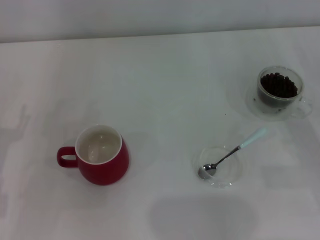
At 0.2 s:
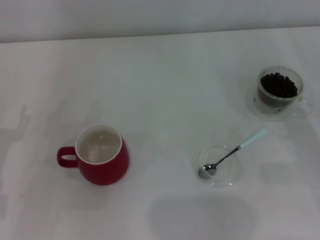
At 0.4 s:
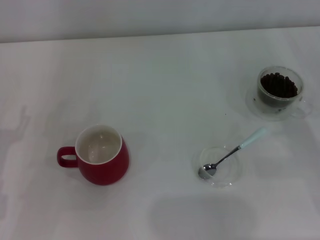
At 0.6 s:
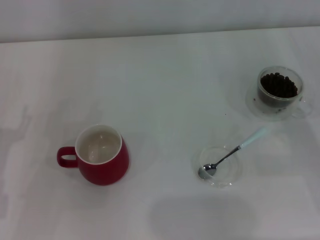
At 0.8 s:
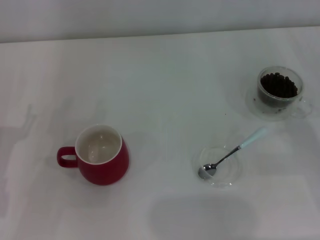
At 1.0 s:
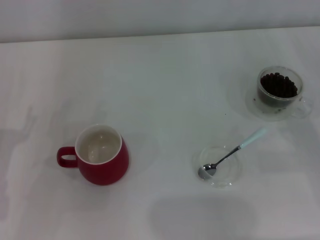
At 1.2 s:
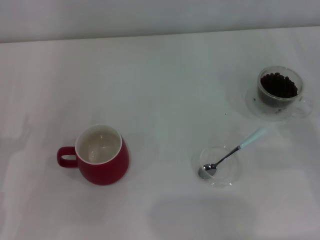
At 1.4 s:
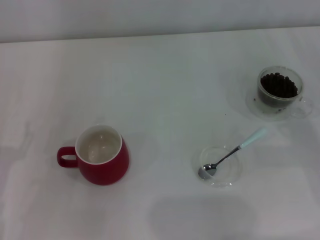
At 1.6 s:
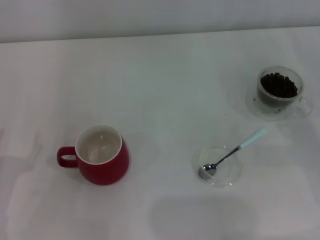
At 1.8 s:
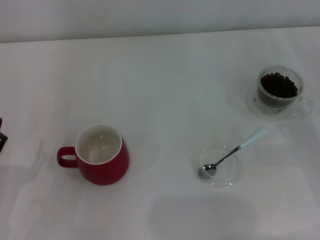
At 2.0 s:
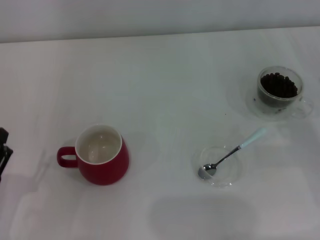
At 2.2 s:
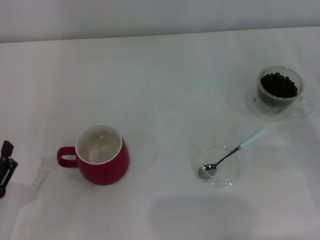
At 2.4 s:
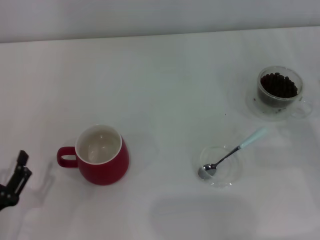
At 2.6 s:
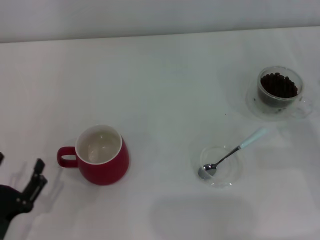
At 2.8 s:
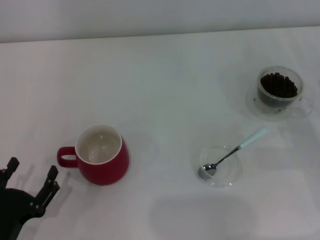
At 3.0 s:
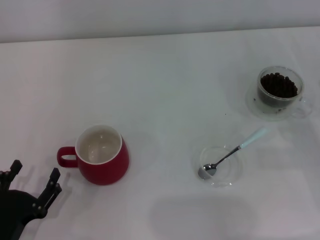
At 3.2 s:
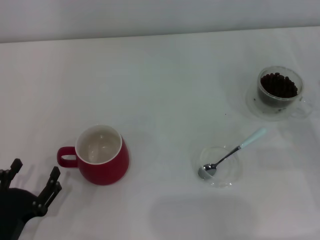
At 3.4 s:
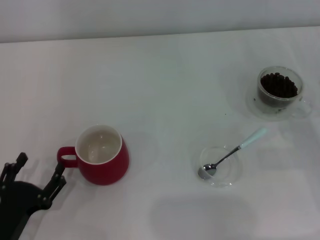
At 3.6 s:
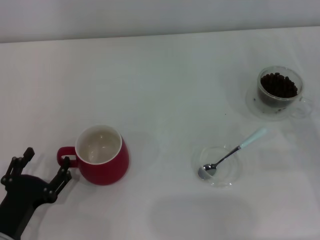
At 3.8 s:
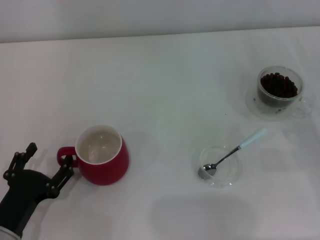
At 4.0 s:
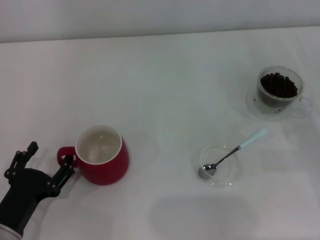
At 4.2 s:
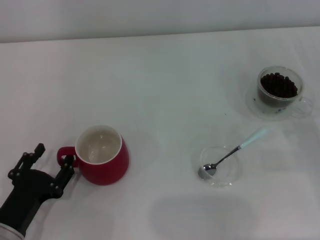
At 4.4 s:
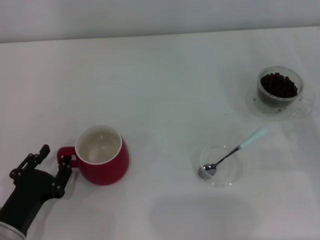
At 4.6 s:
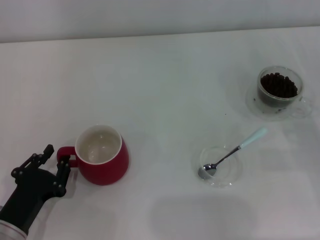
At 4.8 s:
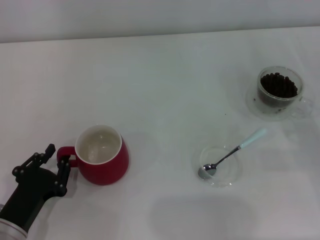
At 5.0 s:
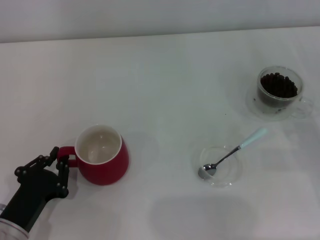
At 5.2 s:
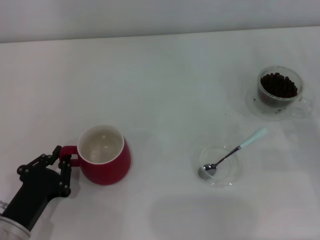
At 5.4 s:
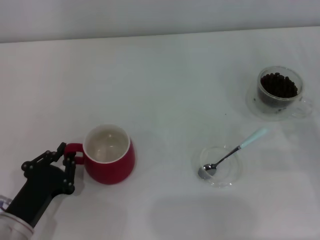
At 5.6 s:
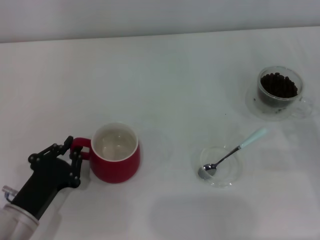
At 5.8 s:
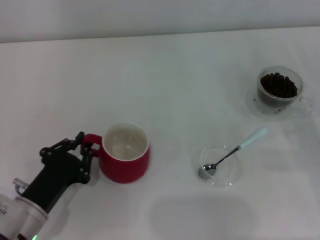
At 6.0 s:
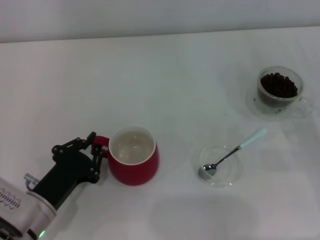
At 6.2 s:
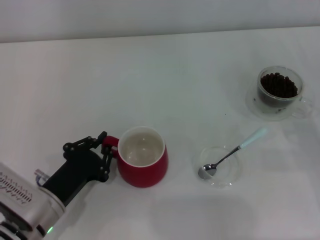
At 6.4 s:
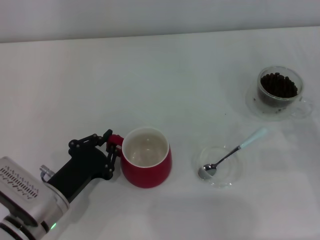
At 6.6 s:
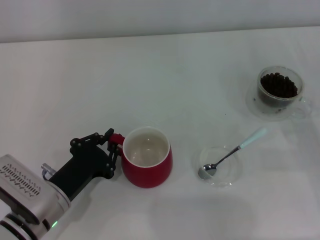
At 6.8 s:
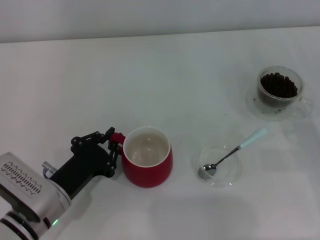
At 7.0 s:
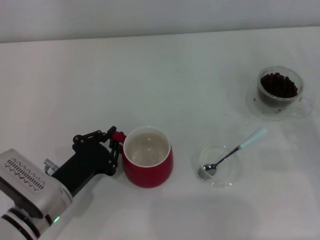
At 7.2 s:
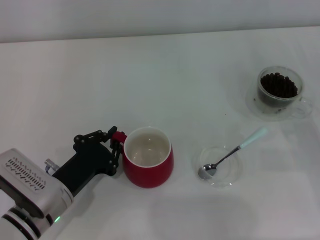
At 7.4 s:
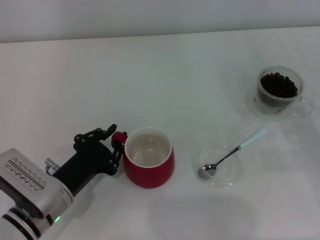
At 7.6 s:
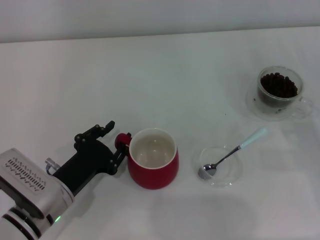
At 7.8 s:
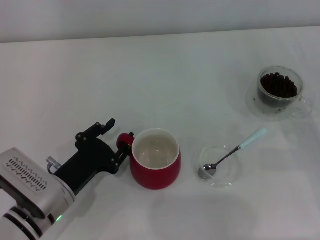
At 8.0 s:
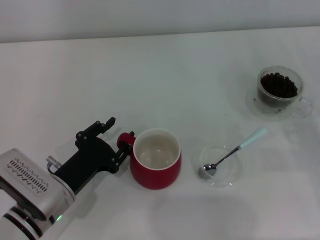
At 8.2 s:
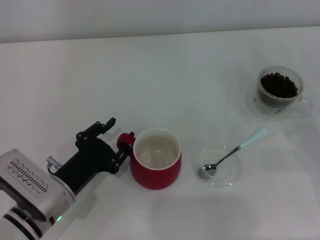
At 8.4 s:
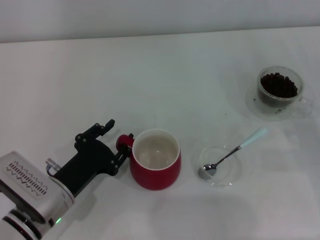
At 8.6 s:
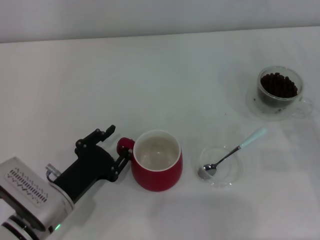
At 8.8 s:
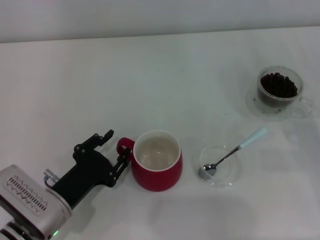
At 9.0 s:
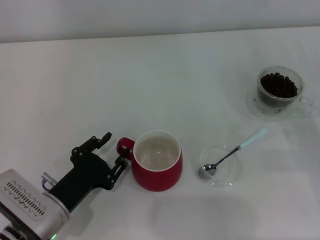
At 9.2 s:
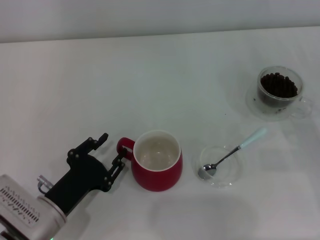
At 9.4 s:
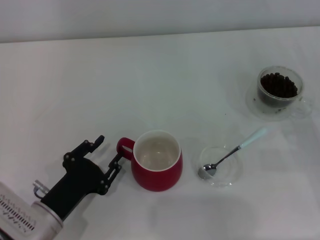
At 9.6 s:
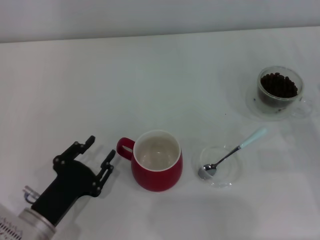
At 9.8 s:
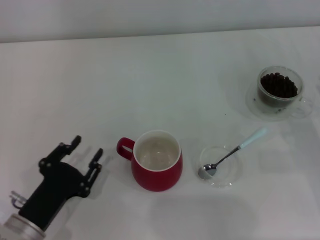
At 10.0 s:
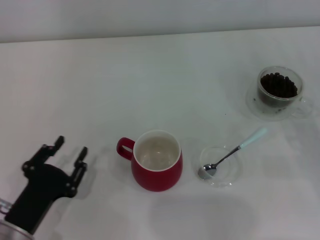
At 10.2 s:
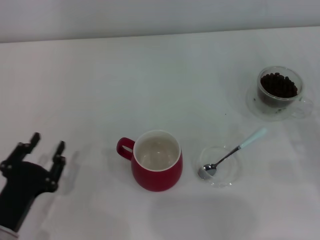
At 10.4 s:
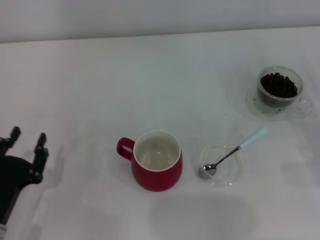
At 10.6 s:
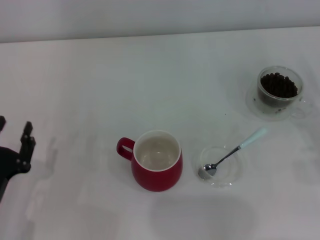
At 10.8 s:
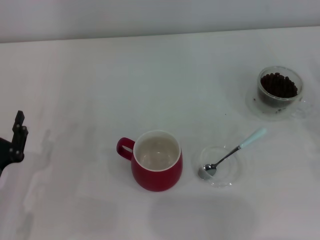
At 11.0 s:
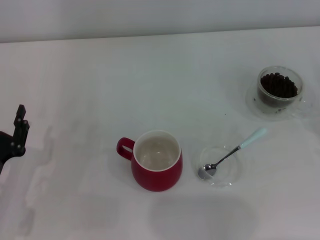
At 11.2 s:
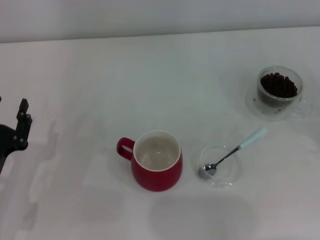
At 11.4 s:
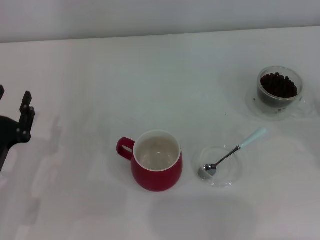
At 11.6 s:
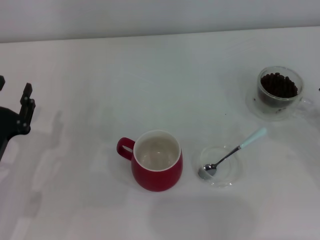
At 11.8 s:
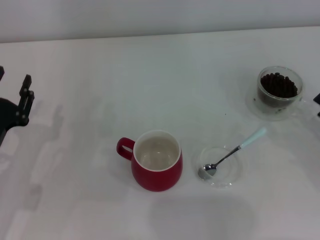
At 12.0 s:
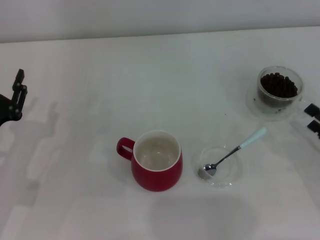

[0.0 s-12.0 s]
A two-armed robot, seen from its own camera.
Task of the whole recording: Use a blue spoon to take out the coffee beans from the glass and pour them into the red cup.
Step, 0.0 to 9.8 s: Move the cup to the center of view with the left gripper.
1.6 to 3.0 s: The left gripper moves approximately 5 cm.
3.0 to 4.4 s: The left gripper closes its fingers.
4.4 to 6.0 s: The left gripper changes place by roughly 5 cm, and closes.
6.0 to 9.0 s: The grippers stay close to where they were, moving slightly.
9.0 to 10.4 s: The left gripper heads to the left, covering some 5 cm.
10.4 to 12.0 s: The left gripper heads forward, covering some 10 cm.

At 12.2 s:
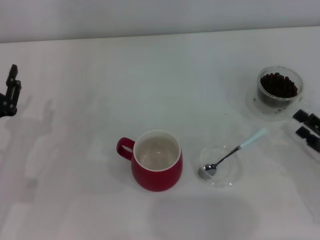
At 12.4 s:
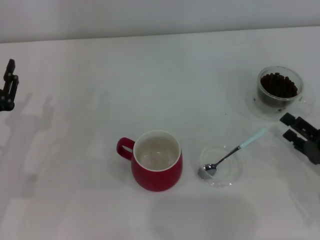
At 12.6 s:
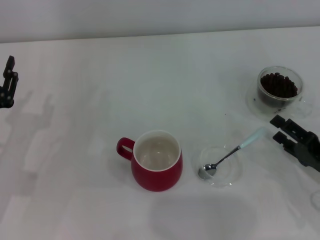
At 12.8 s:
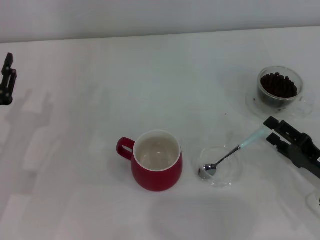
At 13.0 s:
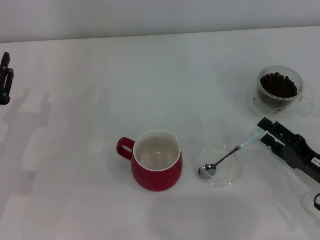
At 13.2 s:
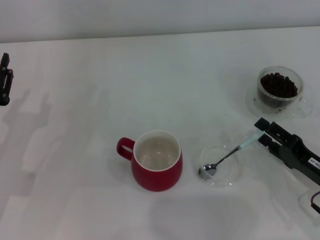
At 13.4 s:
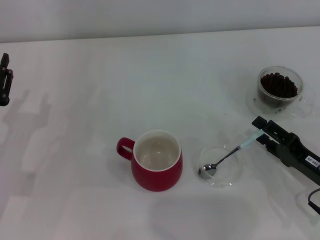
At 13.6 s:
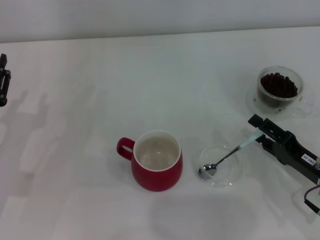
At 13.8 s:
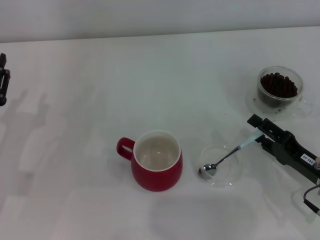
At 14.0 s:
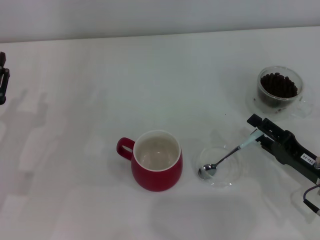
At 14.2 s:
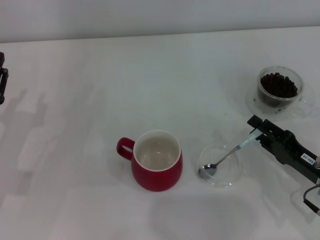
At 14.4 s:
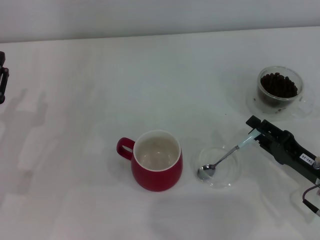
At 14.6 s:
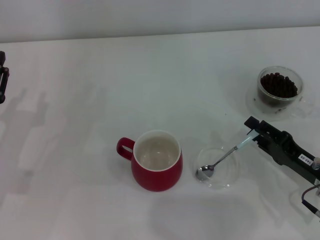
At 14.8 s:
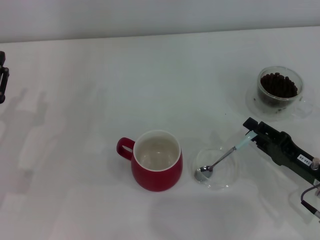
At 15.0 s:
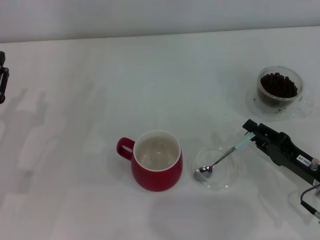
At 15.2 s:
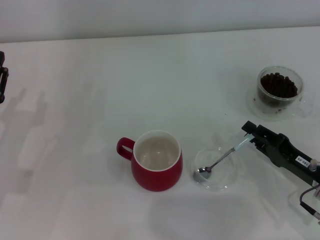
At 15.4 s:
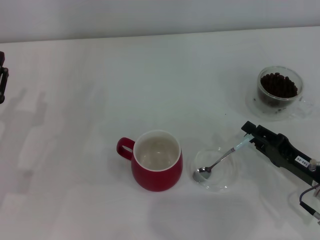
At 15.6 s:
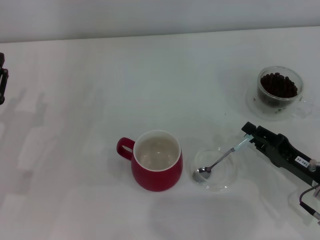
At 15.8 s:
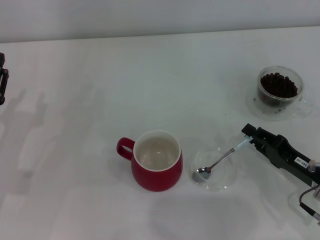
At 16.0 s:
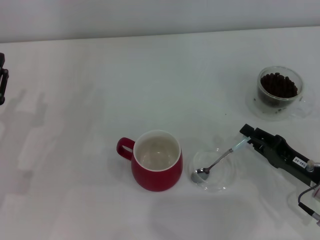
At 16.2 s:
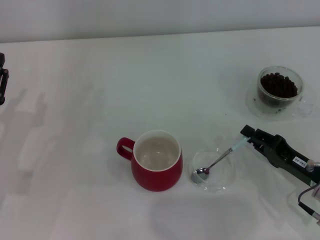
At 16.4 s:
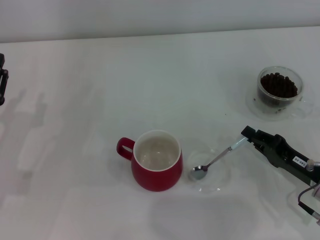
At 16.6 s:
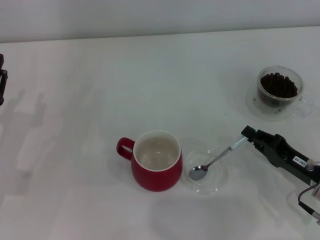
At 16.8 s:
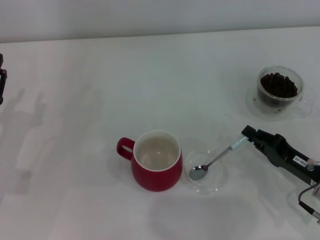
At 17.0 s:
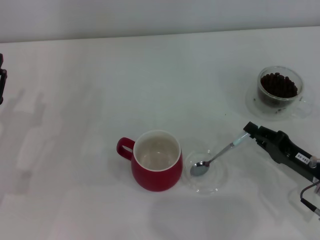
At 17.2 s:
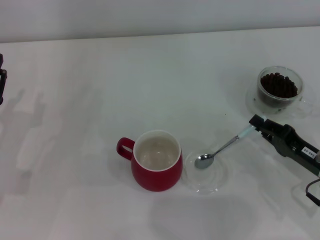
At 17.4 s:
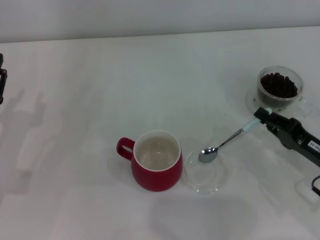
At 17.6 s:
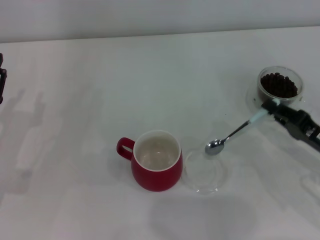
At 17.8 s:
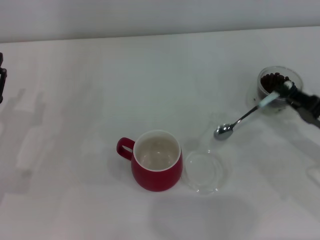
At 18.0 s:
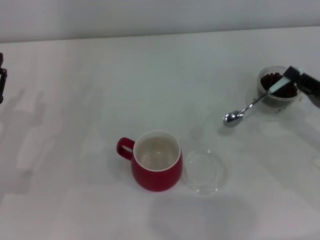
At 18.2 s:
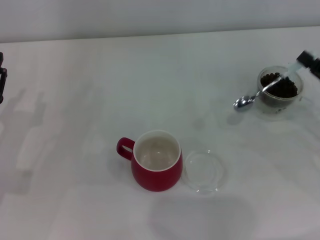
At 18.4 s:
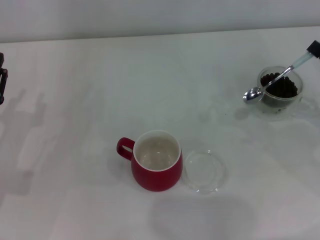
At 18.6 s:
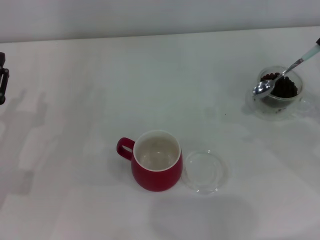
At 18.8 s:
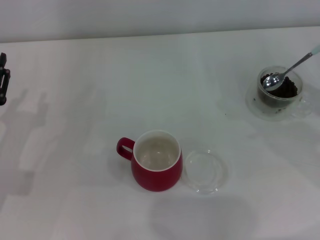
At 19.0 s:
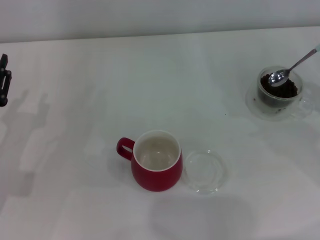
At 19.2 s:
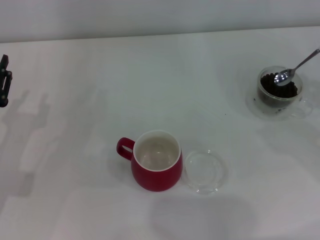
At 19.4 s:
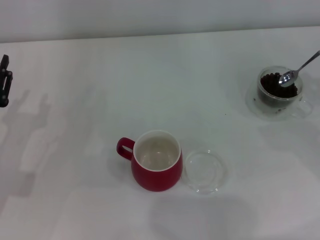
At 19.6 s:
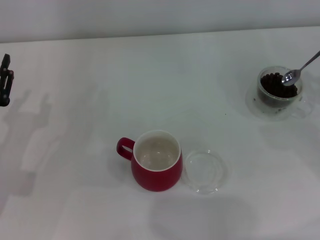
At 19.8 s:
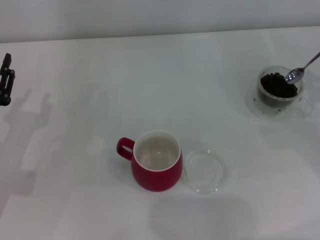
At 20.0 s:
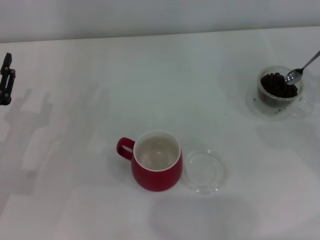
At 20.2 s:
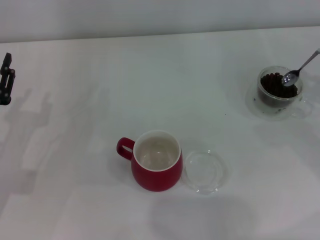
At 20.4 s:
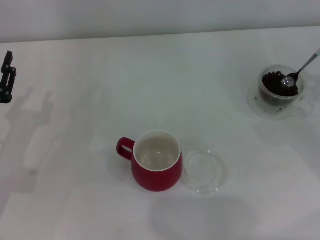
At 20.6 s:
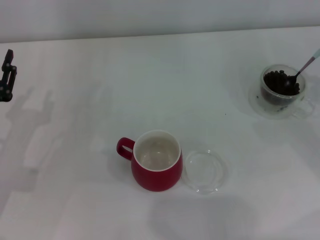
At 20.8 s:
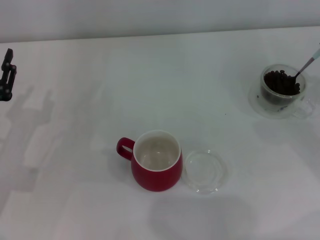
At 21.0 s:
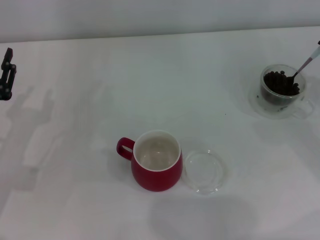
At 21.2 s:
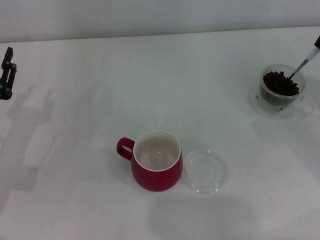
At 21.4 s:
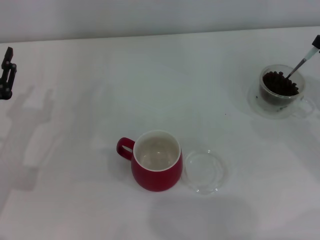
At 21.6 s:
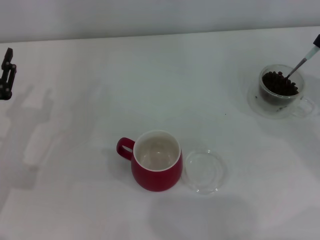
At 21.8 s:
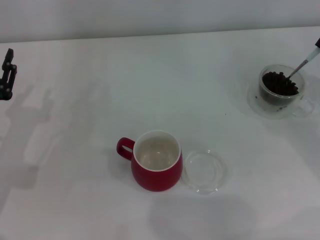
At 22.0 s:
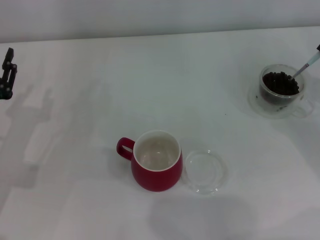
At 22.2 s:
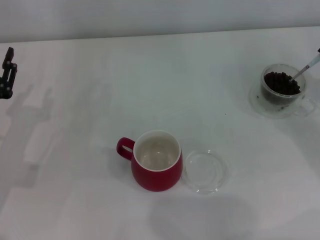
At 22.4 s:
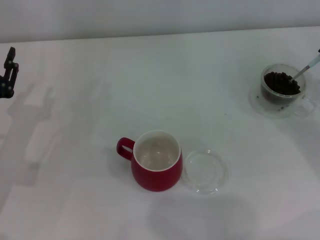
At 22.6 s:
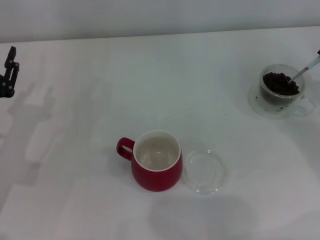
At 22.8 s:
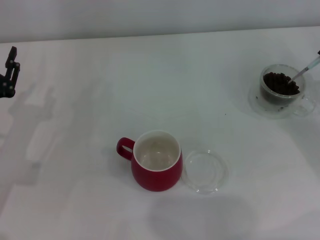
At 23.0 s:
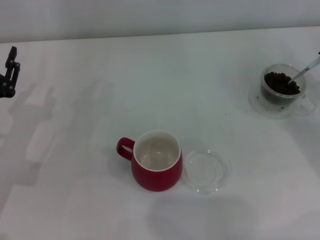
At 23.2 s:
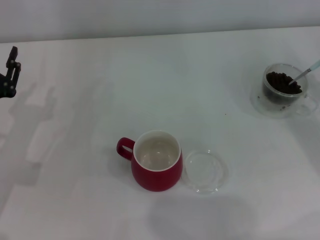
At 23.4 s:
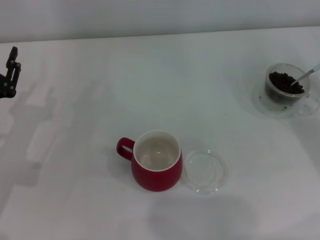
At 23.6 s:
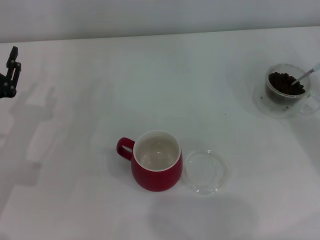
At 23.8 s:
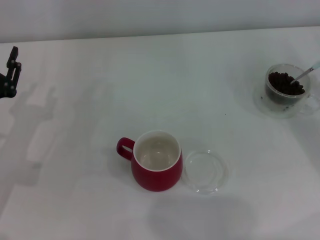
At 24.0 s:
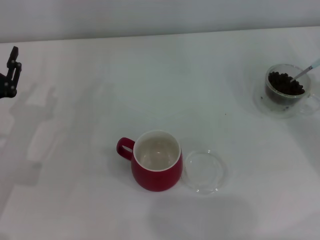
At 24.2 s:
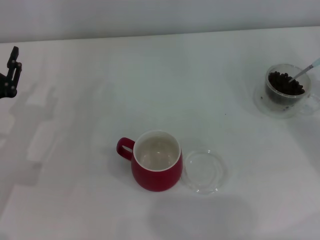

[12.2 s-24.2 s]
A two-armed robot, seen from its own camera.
Task of the whole recording: Use a blue spoon to take out the coffee beans from the glass and pour them into the red cup.
Step, 12.2 to 17.4 s: Pick up the spoon with the right gripper.
12.2 to 13.8 s: The right gripper goes about 5 cm to the left.
13.8 to 15.2 s: The right gripper closes.
15.2 to 16.6 s: The right gripper closes.
16.6 to 18.2 s: The right gripper shifts roughly 10 cm upward and to the right.
18.2 to 19.8 s: The right gripper shifts by about 5 cm.
19.8 to 21.2 s: The grippers stay close to where they were, moving slightly.
22.6 to 24.2 s: There are only small adjustments of the grippers.
